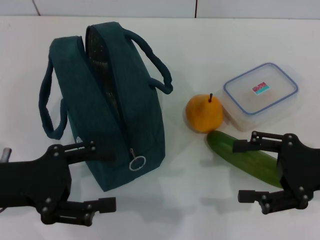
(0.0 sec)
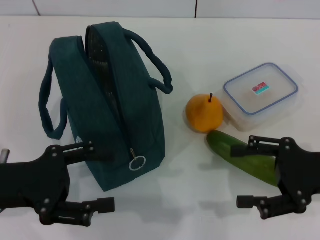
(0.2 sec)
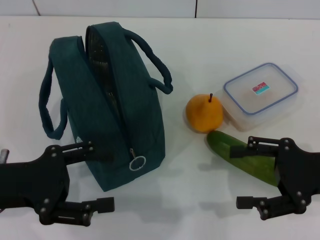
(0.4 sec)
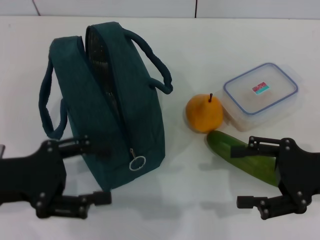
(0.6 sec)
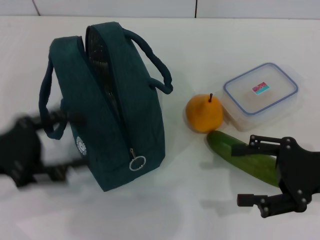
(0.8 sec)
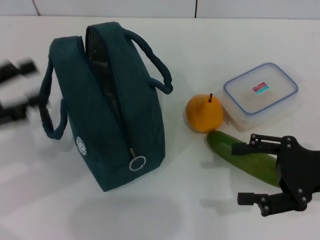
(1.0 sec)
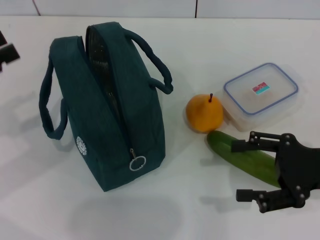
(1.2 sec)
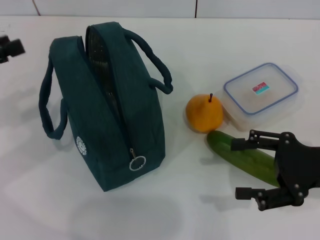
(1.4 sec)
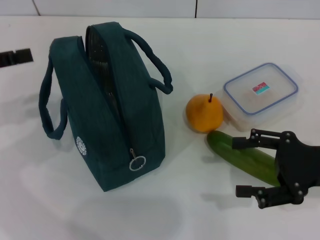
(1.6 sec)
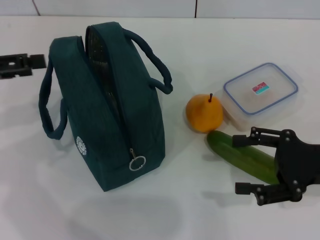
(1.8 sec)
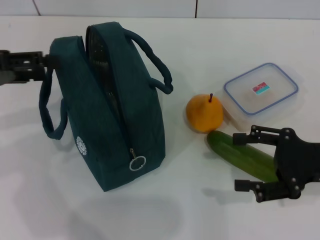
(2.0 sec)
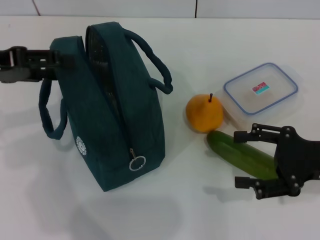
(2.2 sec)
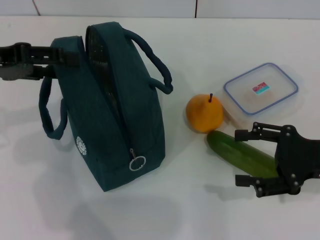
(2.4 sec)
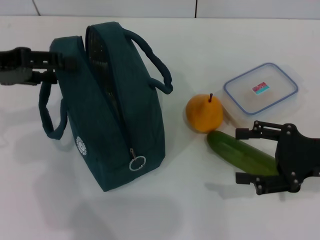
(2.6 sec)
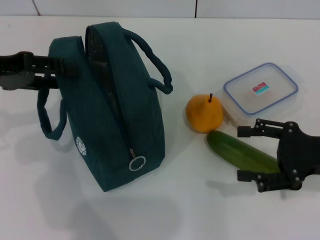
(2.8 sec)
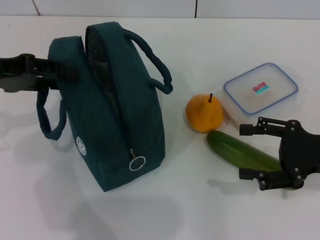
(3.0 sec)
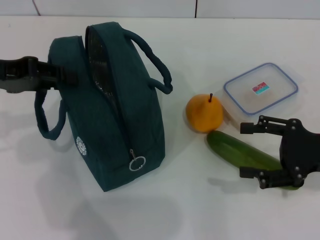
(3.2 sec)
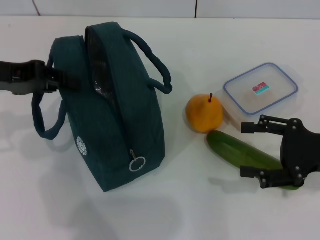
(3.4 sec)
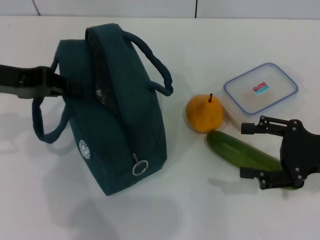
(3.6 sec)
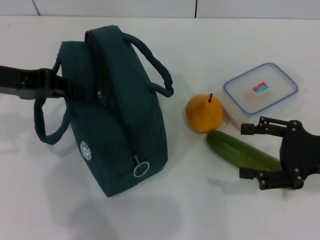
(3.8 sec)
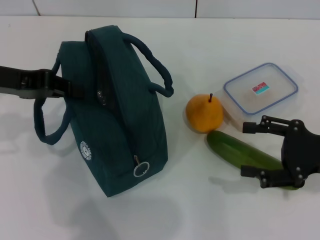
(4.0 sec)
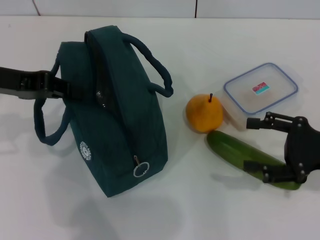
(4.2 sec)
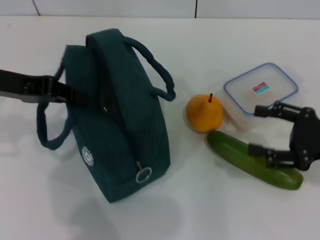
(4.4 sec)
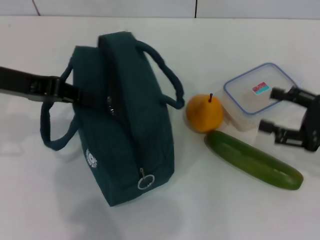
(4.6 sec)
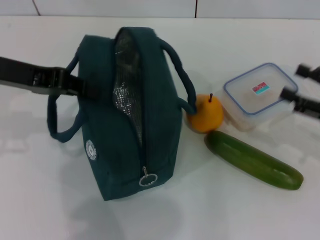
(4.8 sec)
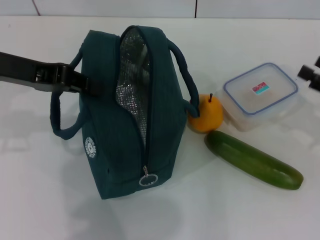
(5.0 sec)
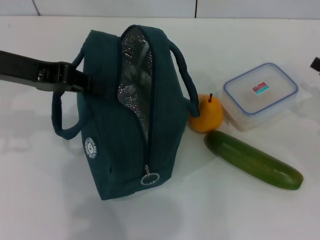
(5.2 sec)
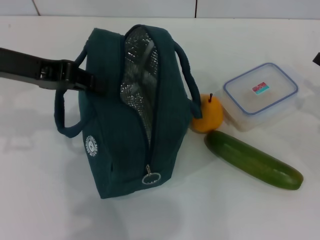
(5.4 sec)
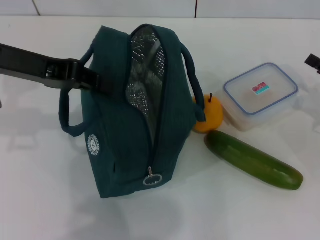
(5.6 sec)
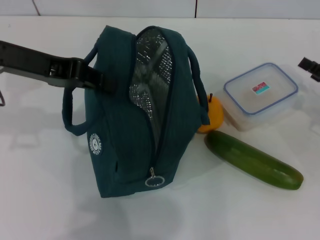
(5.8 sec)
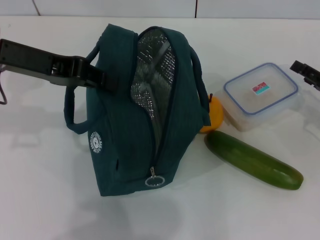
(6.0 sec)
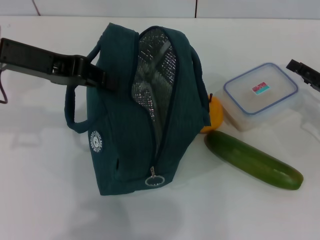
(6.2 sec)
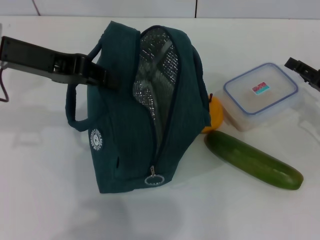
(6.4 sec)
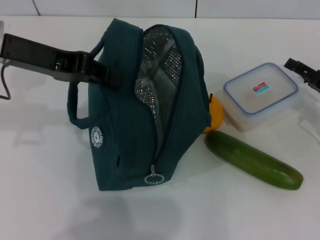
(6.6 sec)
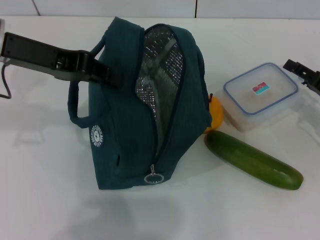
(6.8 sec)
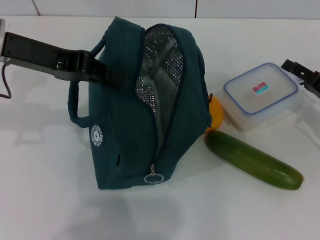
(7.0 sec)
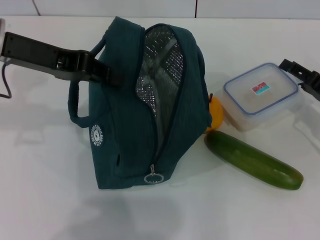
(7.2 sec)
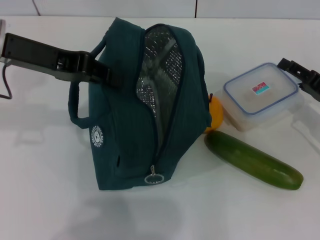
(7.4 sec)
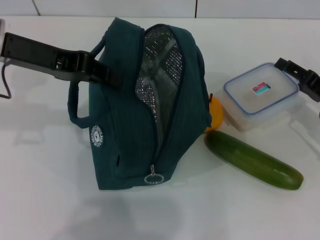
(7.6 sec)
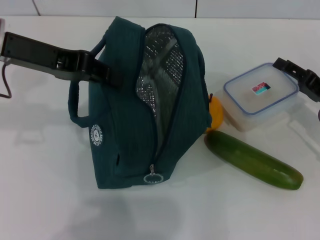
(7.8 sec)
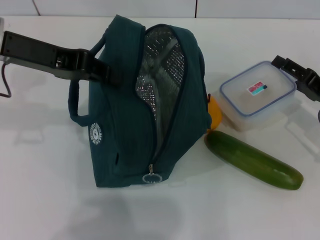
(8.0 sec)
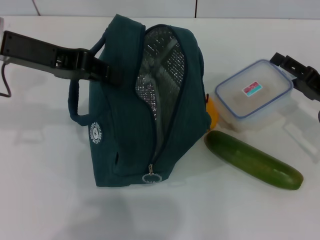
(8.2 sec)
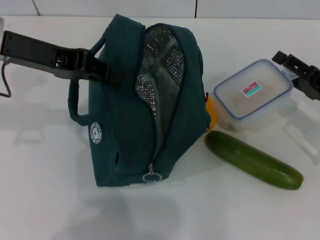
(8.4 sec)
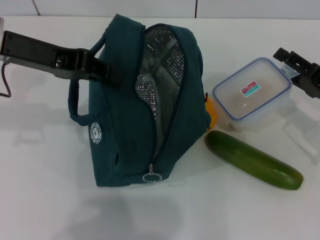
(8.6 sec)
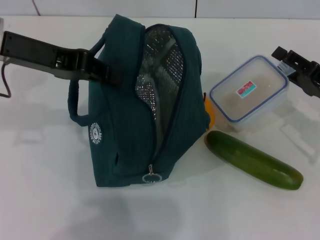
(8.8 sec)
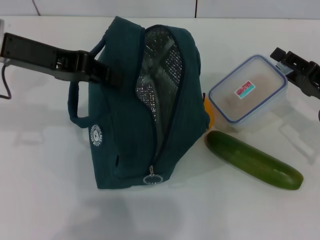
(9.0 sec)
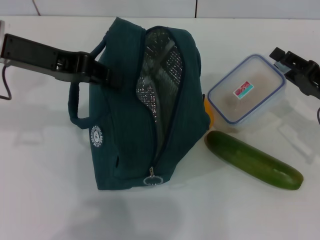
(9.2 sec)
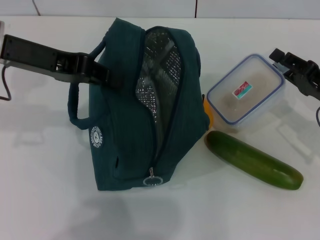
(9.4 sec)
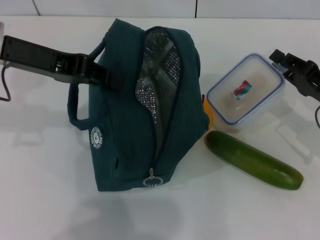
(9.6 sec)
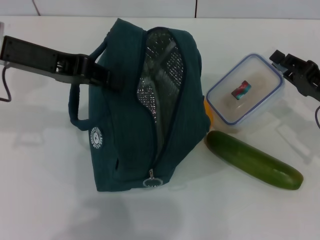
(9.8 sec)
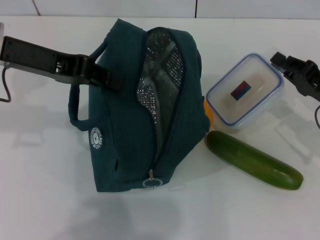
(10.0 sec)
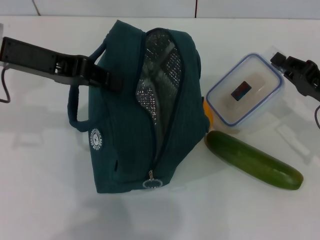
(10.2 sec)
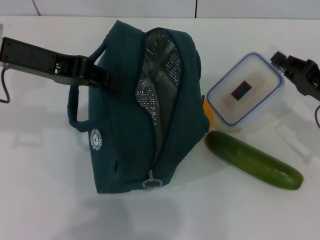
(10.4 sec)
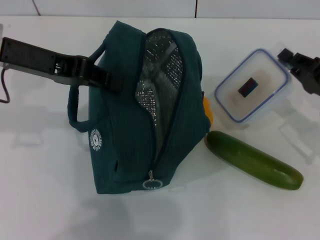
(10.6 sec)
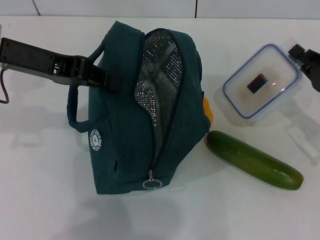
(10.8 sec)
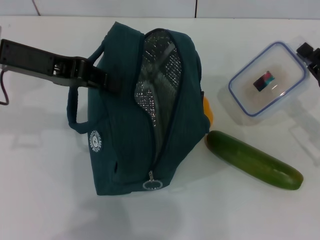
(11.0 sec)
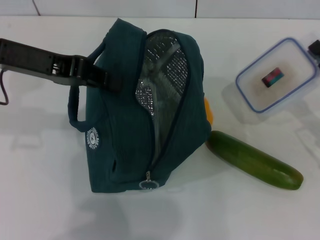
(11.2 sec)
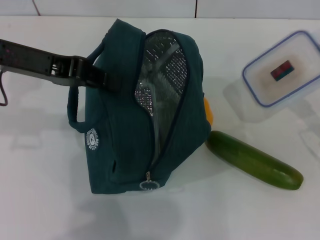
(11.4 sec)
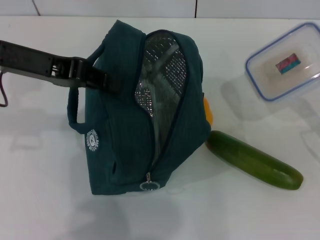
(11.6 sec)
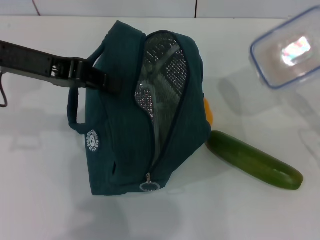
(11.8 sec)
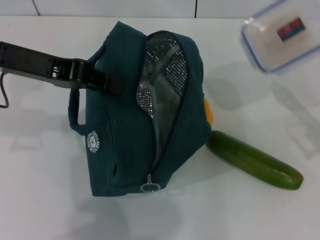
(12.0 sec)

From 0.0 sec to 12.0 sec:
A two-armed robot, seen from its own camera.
Step, from 0.0 sec to 4.8 sec: Hold the lunch bag with your left hand.
Step, from 5.0 sec to 10.0 sec: Pick up the lunch box with your right hand.
From 0.0 sec to 1.6 sec: The left gripper travels to the left, forward and upward by some 15 cm.
From 1.6 sec to 3.0 sec: The left gripper goes some 5 cm to the right.
From 3.0 sec to 4.4 sec: The left gripper closes its fingers.
From 4.4 sec to 6.0 sec: The left gripper changes place by approximately 5 cm. Meanwhile the right gripper goes about 5 cm forward.
From 6.0 sec to 9.0 sec: The grippers stay close to where they were, moving slightly.
From 9.0 sec to 10.4 sec: The right gripper closes up.

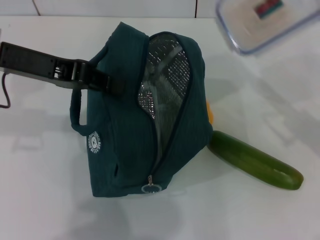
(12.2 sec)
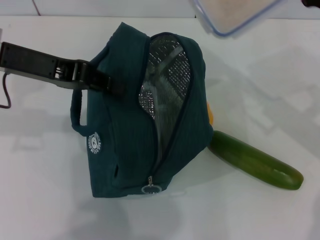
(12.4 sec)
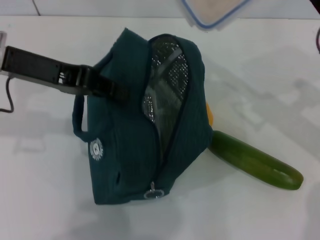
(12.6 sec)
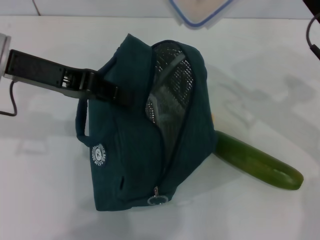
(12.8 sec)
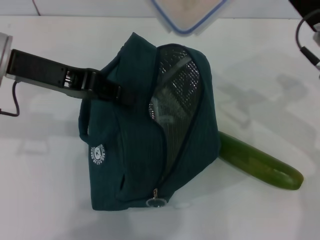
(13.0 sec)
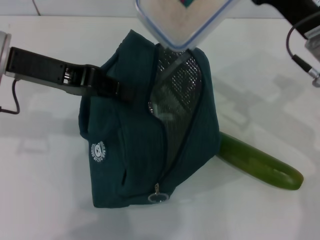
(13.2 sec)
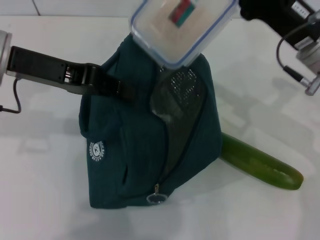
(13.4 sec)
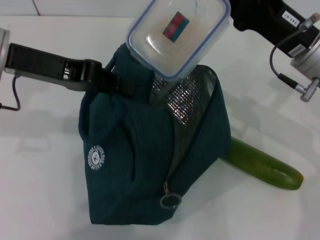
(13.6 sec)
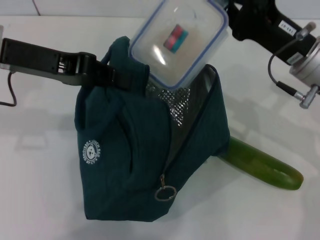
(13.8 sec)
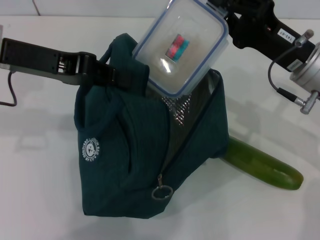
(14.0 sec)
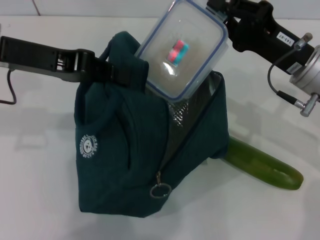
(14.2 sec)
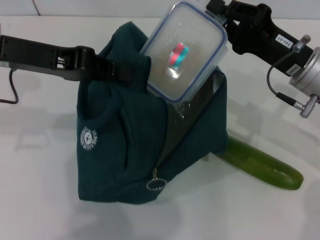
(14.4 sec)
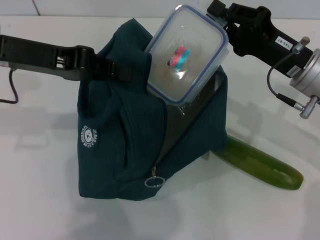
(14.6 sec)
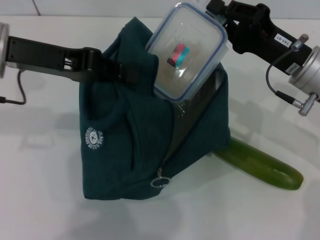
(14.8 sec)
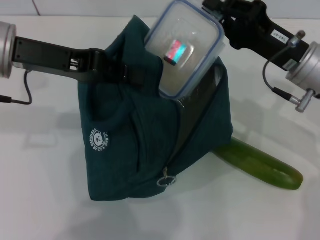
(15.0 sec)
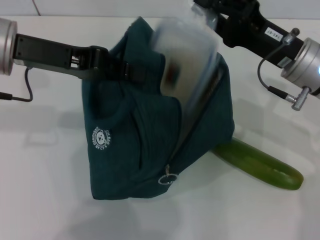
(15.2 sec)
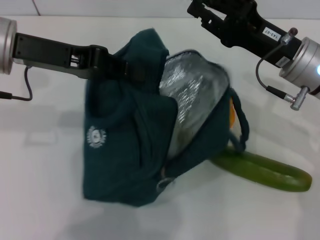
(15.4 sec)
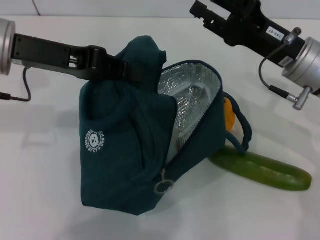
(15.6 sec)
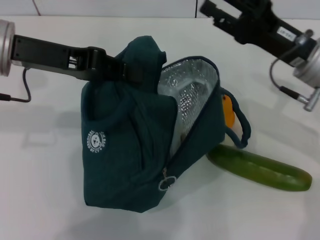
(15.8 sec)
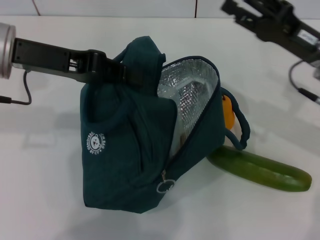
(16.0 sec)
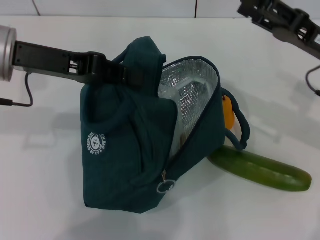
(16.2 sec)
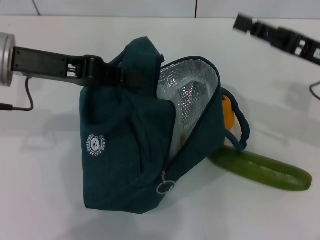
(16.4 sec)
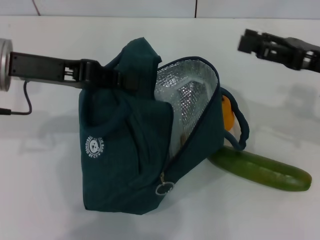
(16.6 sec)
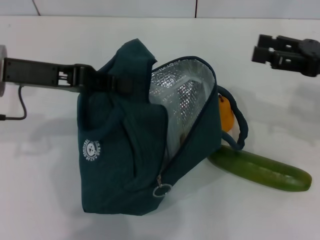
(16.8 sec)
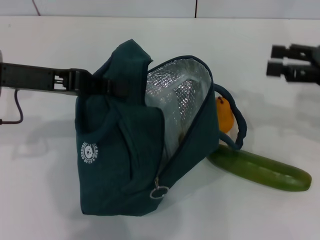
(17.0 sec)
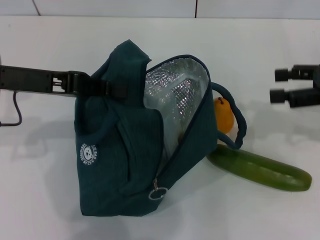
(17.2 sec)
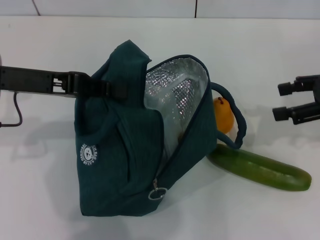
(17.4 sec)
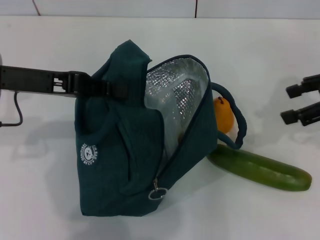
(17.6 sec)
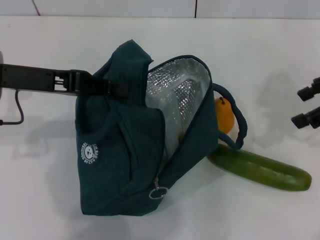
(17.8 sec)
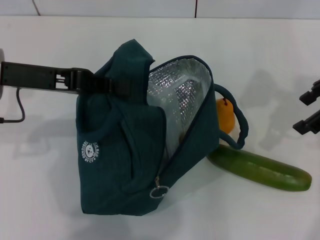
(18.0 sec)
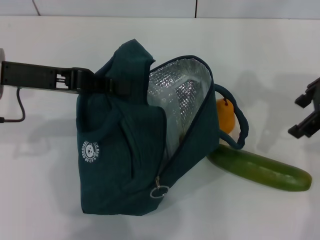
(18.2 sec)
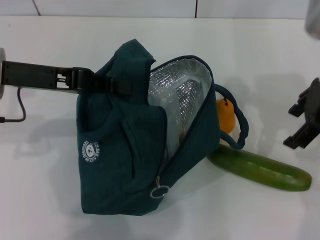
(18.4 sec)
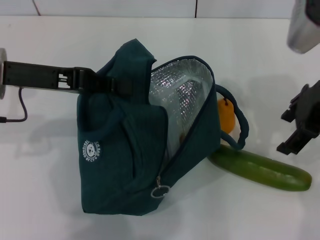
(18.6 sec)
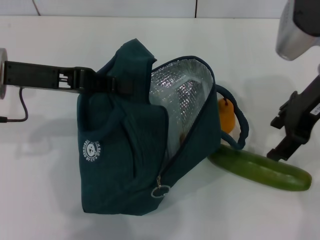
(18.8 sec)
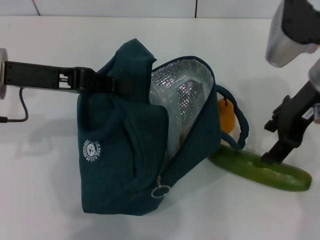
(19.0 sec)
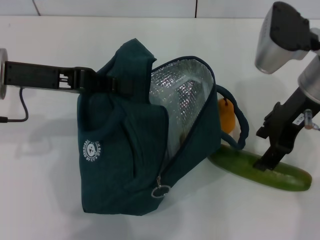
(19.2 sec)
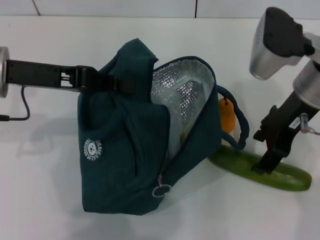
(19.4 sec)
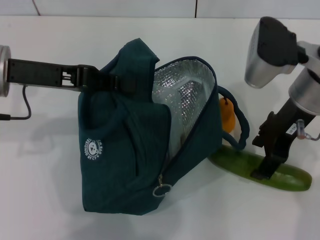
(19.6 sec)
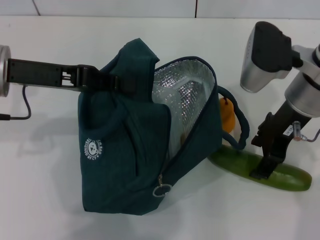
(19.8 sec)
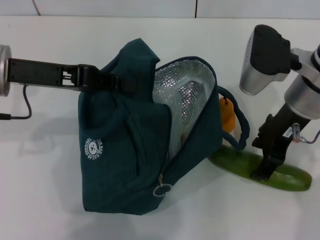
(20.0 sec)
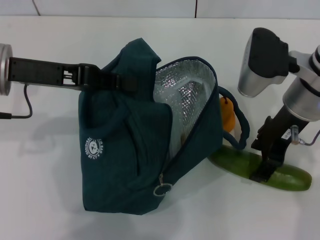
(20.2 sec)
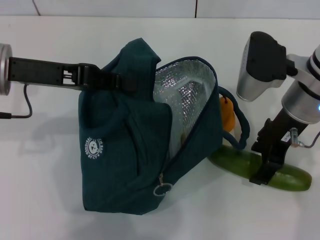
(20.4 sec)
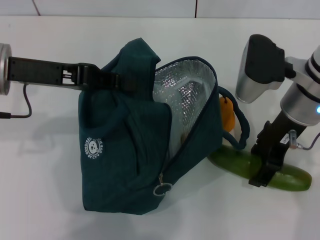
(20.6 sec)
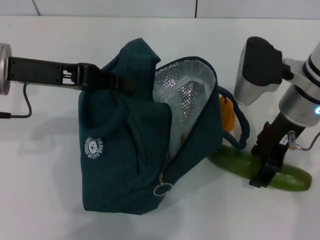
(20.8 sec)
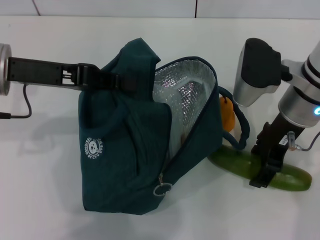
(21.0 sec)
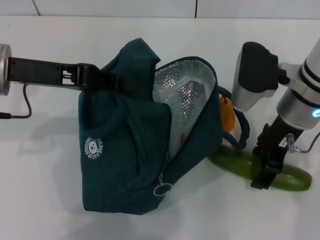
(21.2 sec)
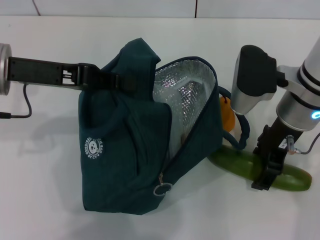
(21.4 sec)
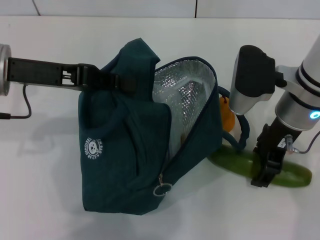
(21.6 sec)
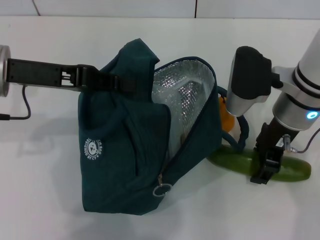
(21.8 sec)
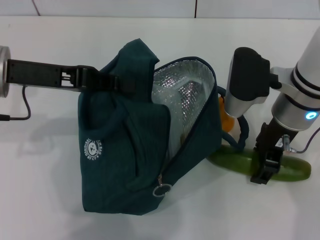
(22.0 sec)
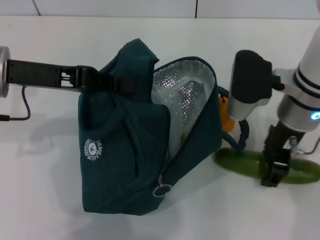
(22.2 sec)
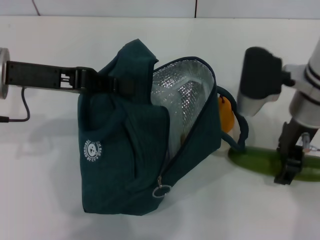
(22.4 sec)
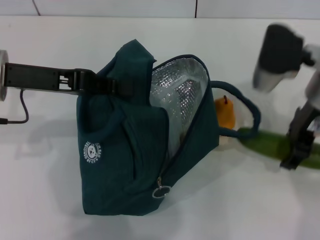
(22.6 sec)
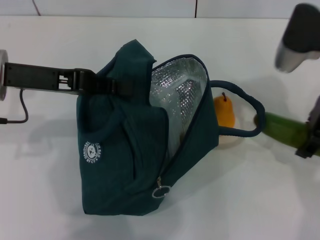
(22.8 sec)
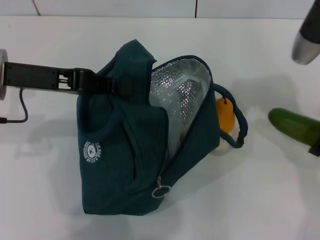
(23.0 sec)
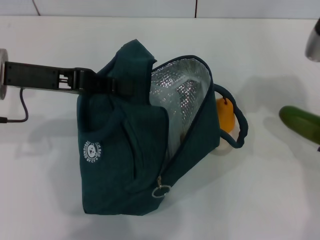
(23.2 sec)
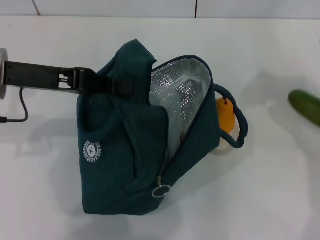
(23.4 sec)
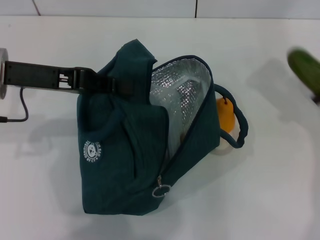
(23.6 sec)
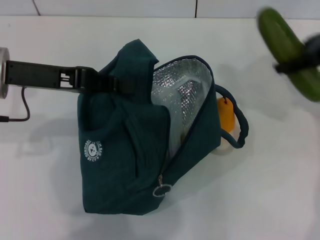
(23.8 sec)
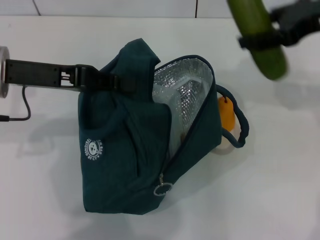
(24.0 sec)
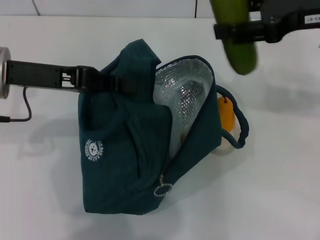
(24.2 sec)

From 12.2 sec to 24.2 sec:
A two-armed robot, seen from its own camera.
Step, from 12.2 sec to 16.6 sec: Place the lunch box into the lunch bag with your right hand.
Step, from 16.8 sec to 22.0 sec: Pick up the cucumber with your right hand.
From 12.2 sec to 13.8 sec: The right gripper heads to the left, covering approximately 10 cm.
From 15.2 sec to 16.6 sec: The right gripper is displaced to the right by approximately 10 cm, and opens its fingers.
From 16.6 sec to 18.2 sec: The right gripper moves upward, approximately 10 cm.
From 18.2 sec to 19.8 sec: The right gripper shifts roughly 10 cm to the left and downward.
From 19.8 sec to 21.2 sec: There are only small adjustments of the grippers.
From 22.6 sec to 24.2 sec: The right gripper moves upward and to the right, about 10 cm.
